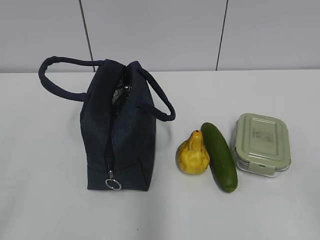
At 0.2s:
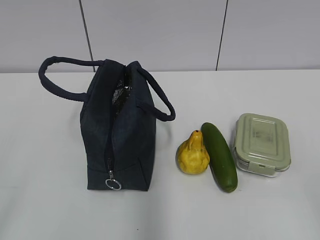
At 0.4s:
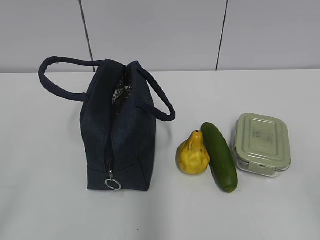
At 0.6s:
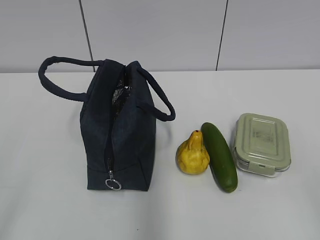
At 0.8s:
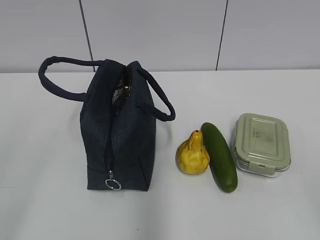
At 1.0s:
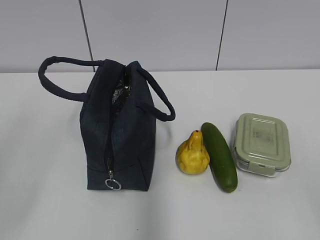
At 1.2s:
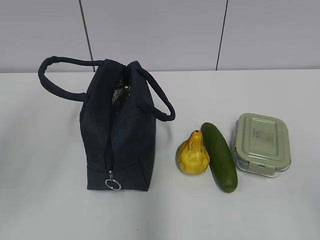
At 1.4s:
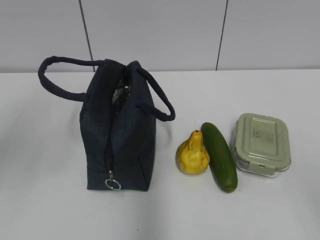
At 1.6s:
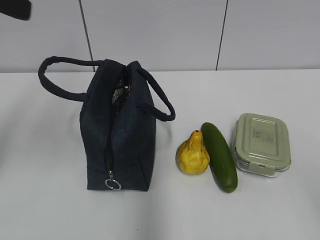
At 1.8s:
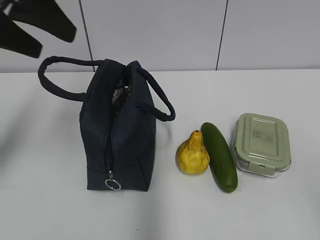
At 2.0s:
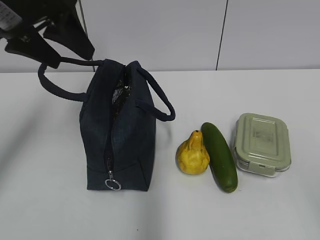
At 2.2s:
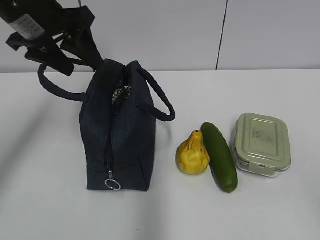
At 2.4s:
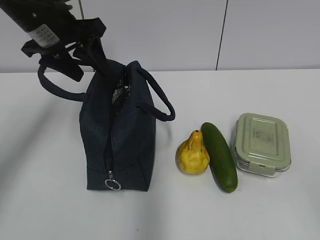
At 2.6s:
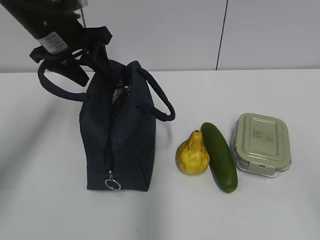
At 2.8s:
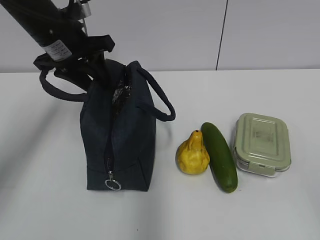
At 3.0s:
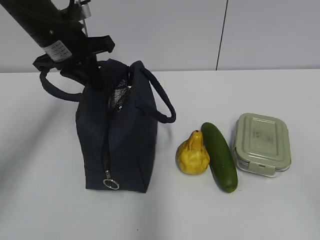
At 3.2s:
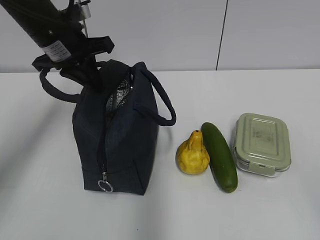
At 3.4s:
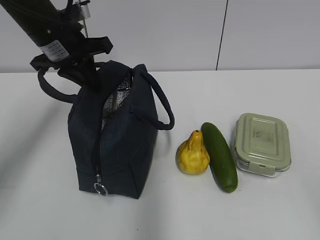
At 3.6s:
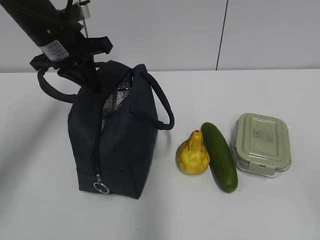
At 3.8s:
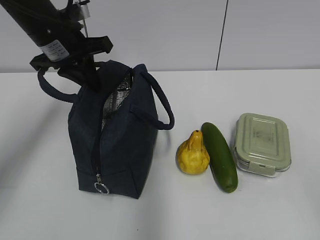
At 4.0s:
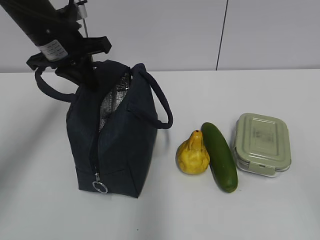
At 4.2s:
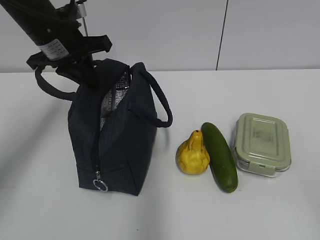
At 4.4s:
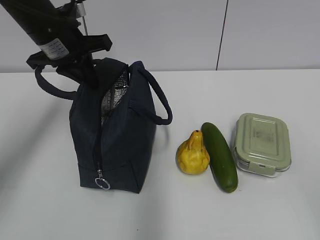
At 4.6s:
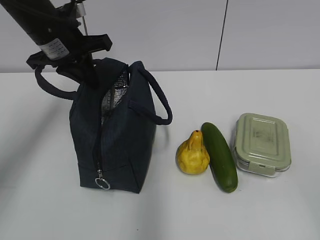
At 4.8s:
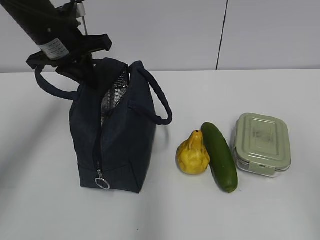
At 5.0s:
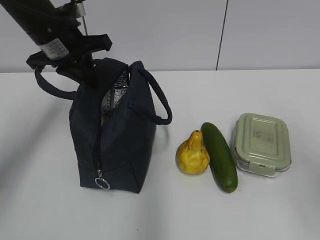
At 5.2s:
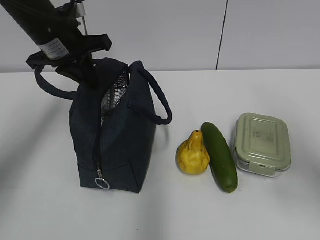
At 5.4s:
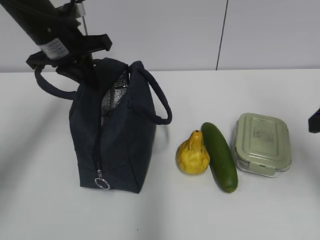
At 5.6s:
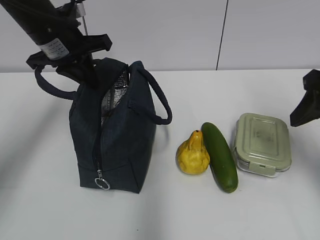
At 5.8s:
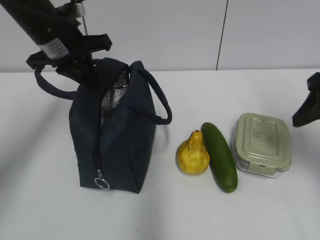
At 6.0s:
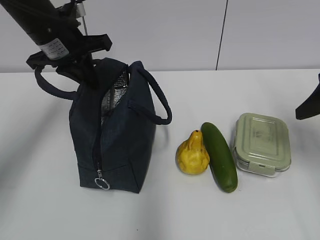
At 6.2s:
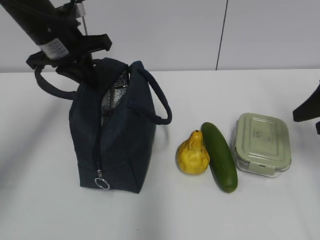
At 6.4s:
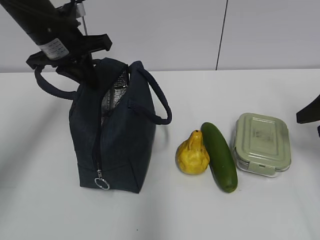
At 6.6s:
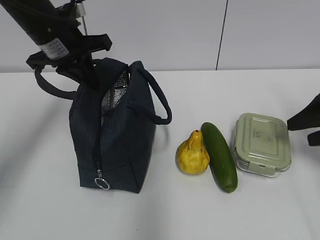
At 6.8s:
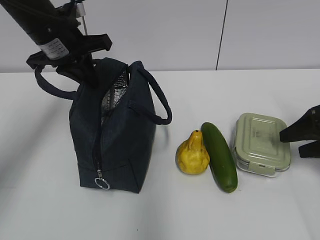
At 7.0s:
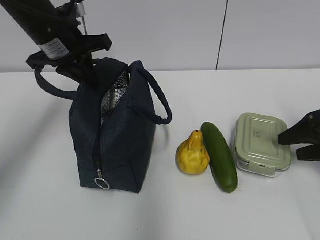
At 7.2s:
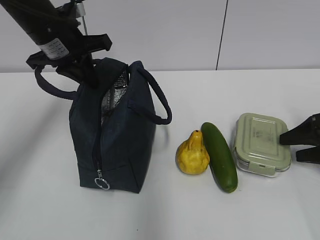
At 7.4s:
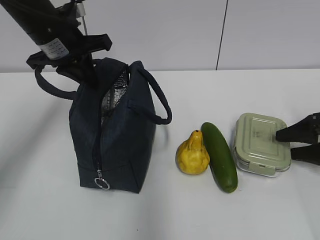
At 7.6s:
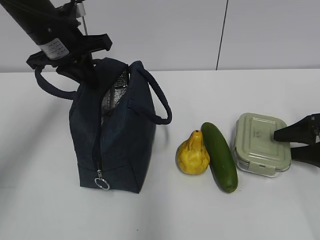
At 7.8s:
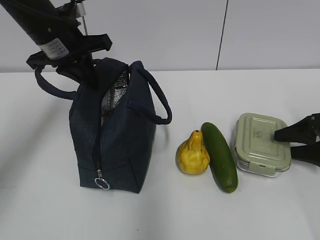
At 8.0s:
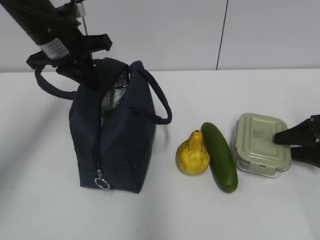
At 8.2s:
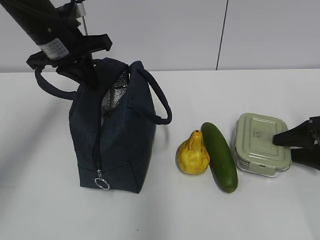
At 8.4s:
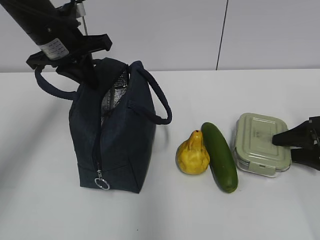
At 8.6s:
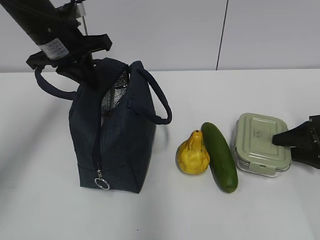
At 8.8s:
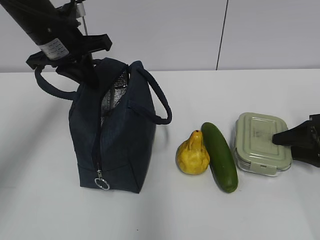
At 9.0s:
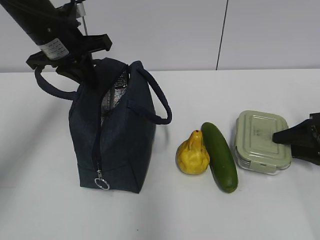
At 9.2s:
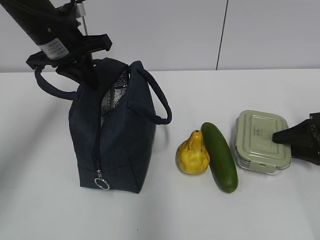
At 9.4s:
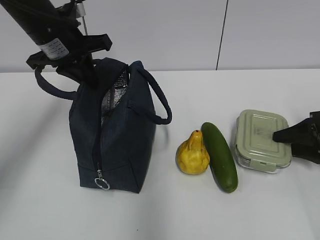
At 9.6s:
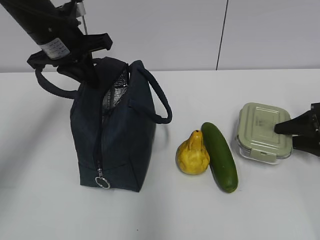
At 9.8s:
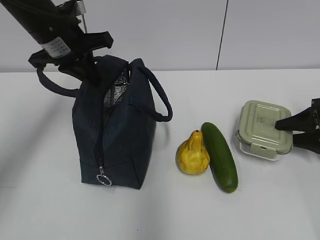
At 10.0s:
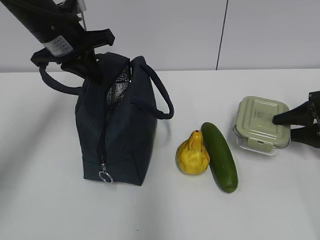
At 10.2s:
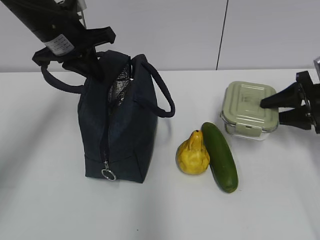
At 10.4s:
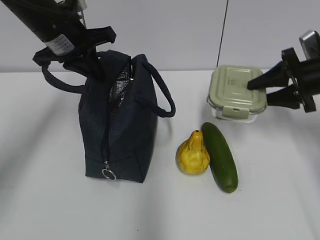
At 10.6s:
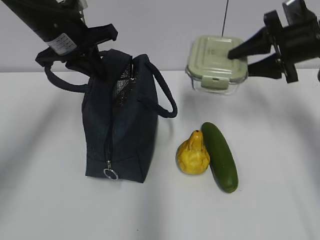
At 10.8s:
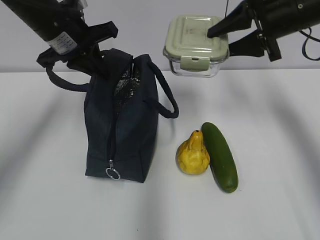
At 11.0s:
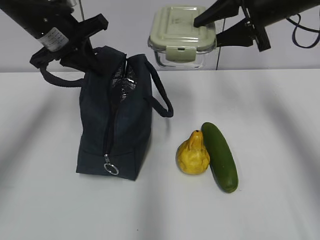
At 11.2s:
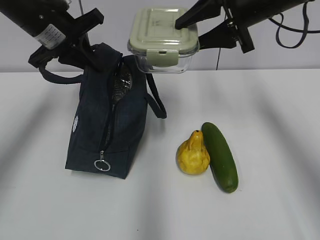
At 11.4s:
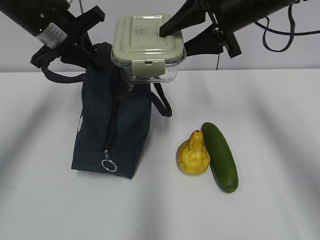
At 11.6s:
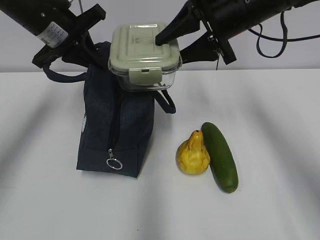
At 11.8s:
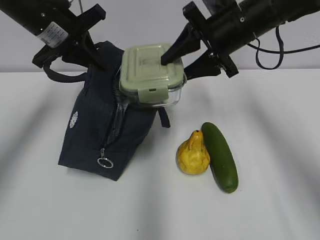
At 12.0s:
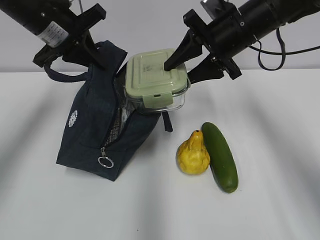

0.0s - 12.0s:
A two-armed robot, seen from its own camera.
Step, 0.0s - 8.6s: Grab the lunch box with your right hand.
1.6s - 3.0s: The left gripper goes roughly 20 cm forward, downward and to the right, and closes up.
3.0s - 4.4s: Both grippers stay put.
4.4s - 6.0s: The right gripper heads forward, covering roughly 30 cm.
6.0s - 7.6s: The right gripper moves downward, about 15 cm.
7.6s - 9.0s: The right gripper closes.
9.0s - 10.4s: The right gripper is displaced upward, to the left and forward by some 15 cm.
10.4s - 12.0s: The right gripper is displaced to the left and upward by roughly 20 cm.

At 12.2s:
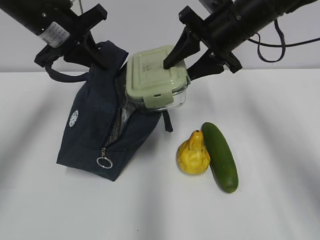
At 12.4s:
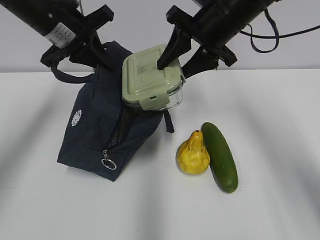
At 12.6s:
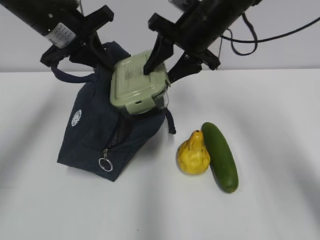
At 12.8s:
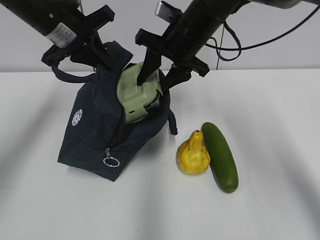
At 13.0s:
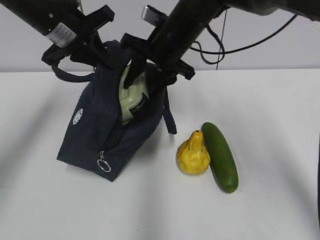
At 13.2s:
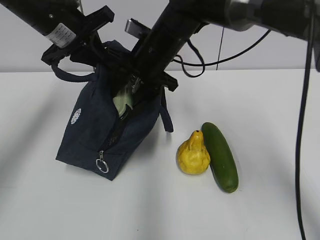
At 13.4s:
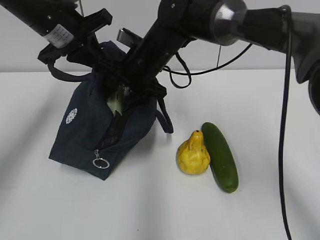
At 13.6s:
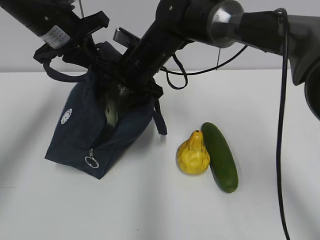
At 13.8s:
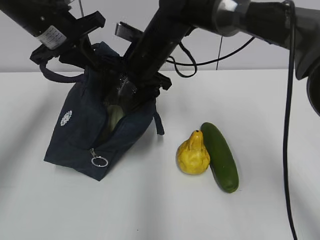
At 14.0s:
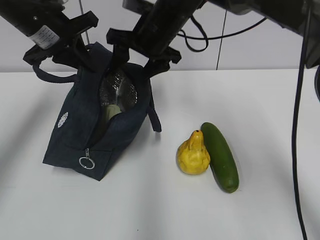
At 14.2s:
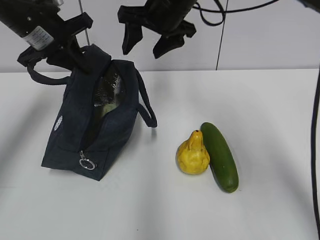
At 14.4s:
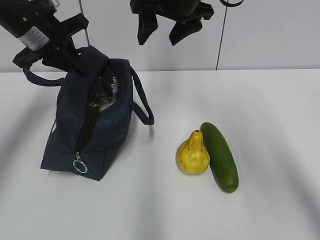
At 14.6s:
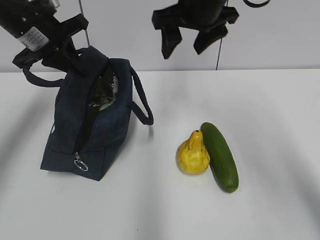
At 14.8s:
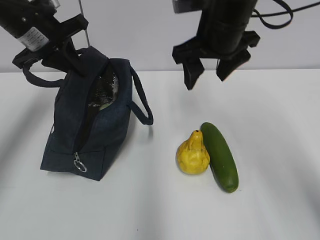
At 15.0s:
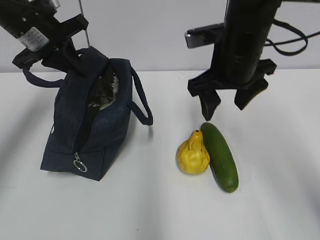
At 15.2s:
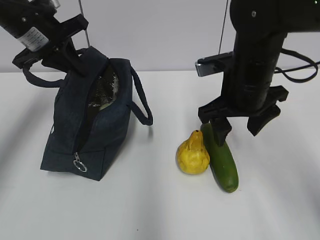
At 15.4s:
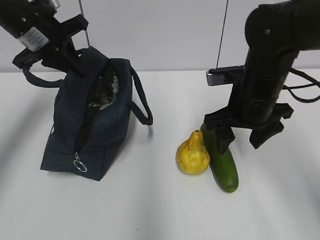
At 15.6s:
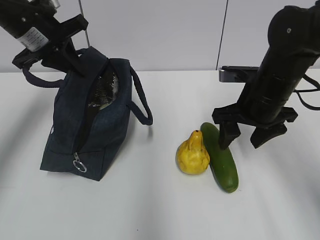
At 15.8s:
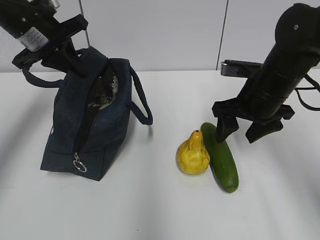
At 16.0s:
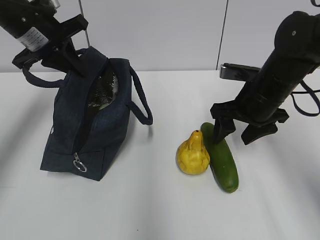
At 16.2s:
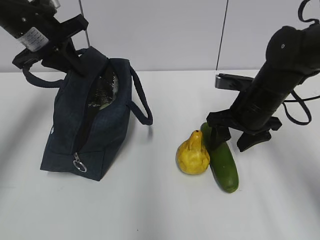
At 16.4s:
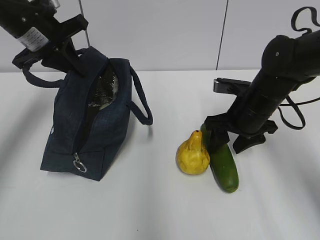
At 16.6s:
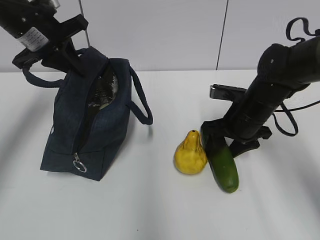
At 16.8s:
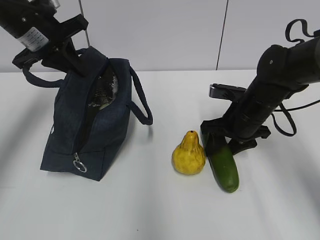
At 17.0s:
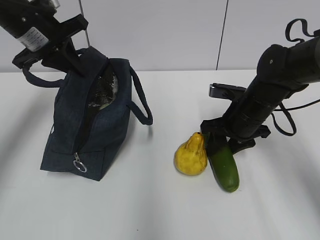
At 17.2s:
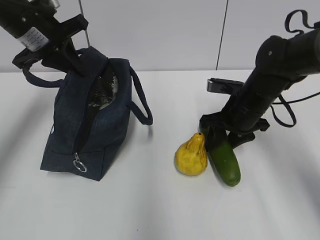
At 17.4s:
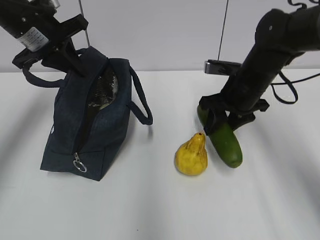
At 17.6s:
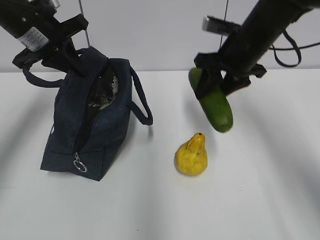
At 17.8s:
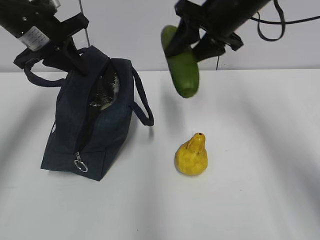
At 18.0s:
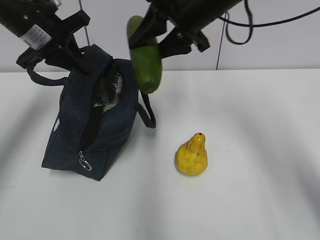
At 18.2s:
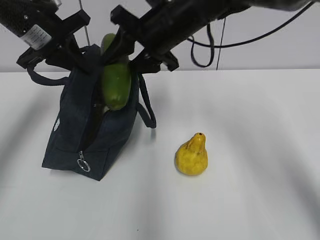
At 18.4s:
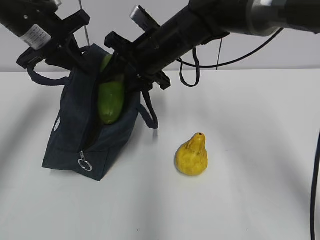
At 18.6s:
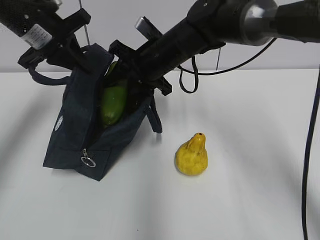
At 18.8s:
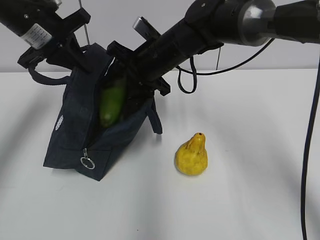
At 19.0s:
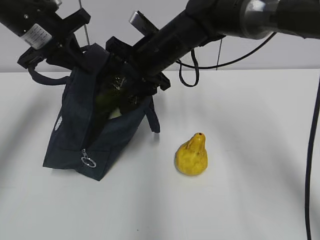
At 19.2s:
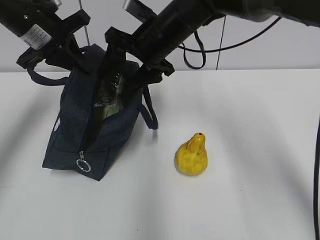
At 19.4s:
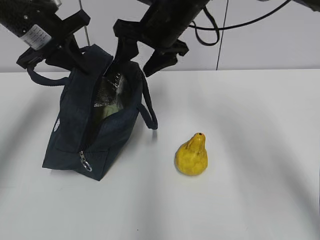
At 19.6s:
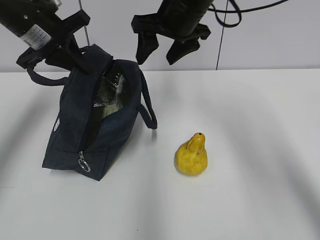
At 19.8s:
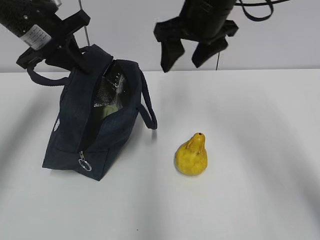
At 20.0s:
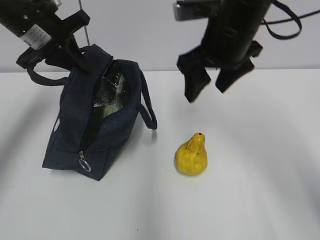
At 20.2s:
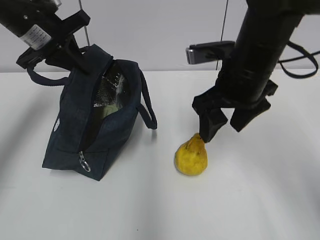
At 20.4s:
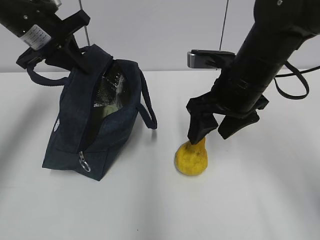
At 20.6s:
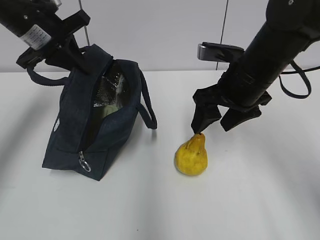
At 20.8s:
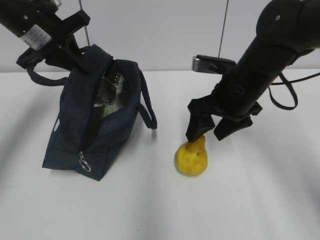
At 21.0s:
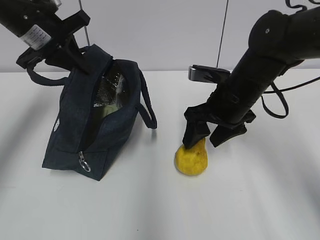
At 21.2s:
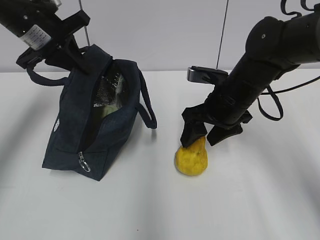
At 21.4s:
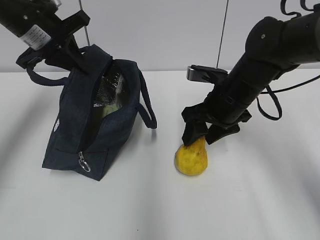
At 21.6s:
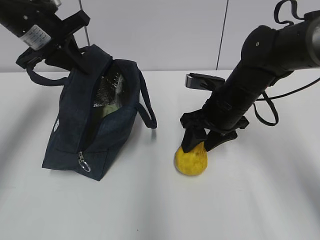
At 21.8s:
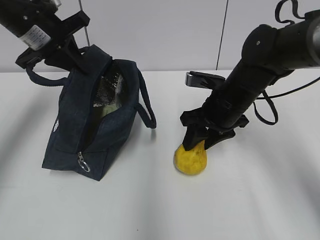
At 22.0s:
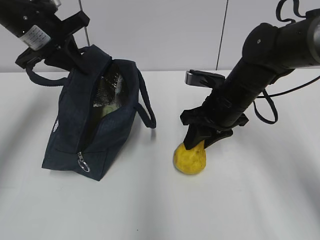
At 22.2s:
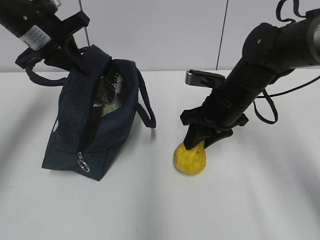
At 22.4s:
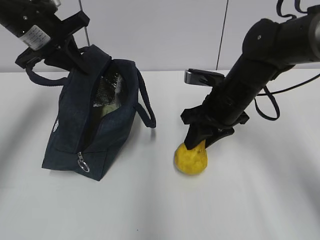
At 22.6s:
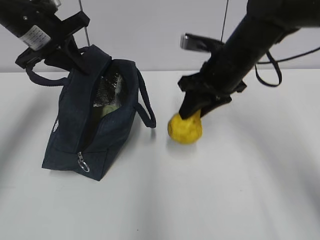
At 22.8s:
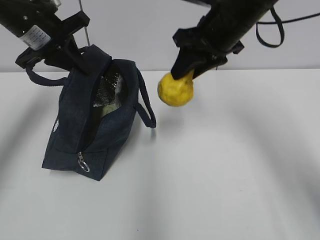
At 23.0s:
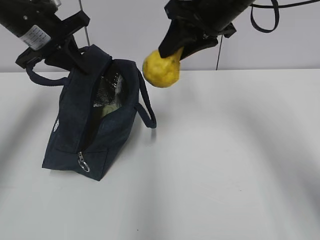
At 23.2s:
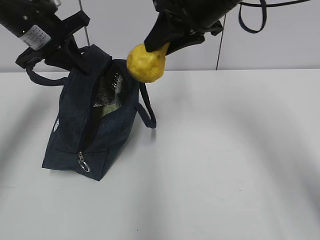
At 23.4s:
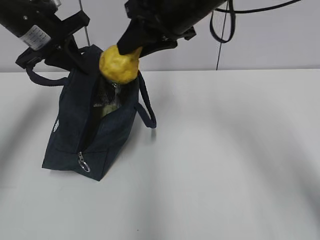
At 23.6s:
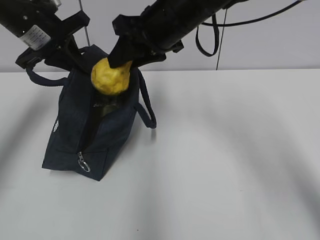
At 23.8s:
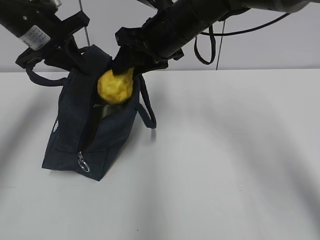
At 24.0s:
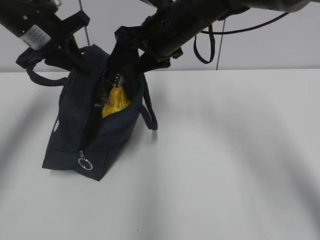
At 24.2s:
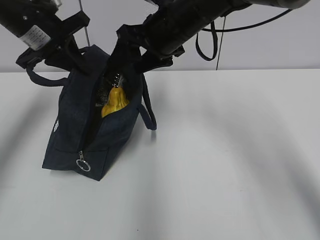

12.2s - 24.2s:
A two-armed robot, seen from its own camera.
Step, 12.2s - 13.6s: Place it into the bag with your right hand.
Step, 14.0s - 17.0s: Grab the cucumber with your right hand.
Step, 17.2s - 19.0s: Place it into the bag with your right hand.
Step, 19.2s - 22.2s: Grab the pear with your right hand.
12.2s - 13.8s: The right gripper moves to the left and downward, about 15 cm, and opens up.
13.8s - 15.2s: The right gripper goes some 15 cm to the right and backward.
15.2s - 16.6s: The right gripper goes roughly 10 cm downward.
16.6s - 18.2s: The right gripper heads upward and to the left, covering about 20 cm.
18.2s - 19.8s: The right gripper reaches approximately 5 cm downward, then returns, and opens its fingers.
19.8s - 21.2s: The right gripper heads downward, covering some 15 cm.
21.2s - 22.6s: The right gripper goes about 5 cm upward, and closes.
22.6s - 24.2s: The right gripper is displaced to the left and upward by about 10 cm, and opens.
